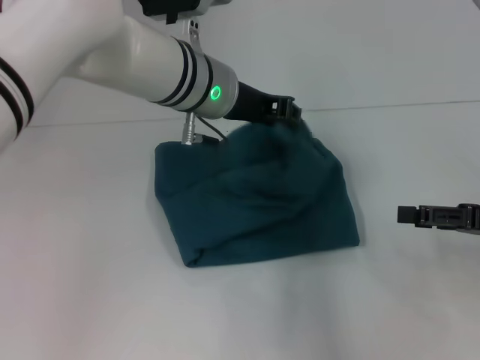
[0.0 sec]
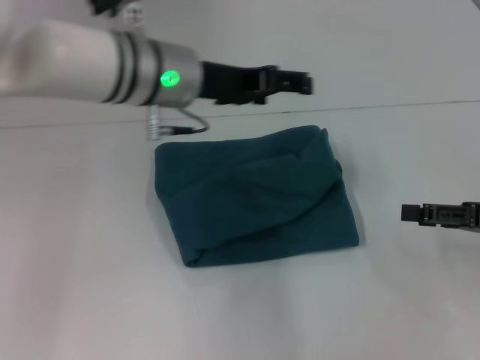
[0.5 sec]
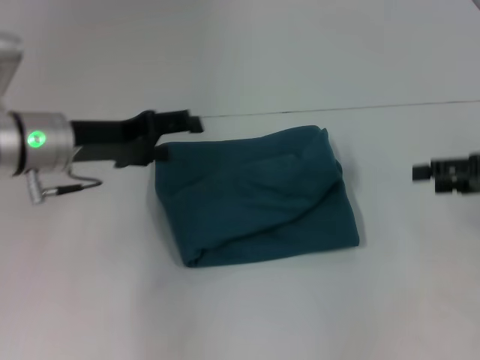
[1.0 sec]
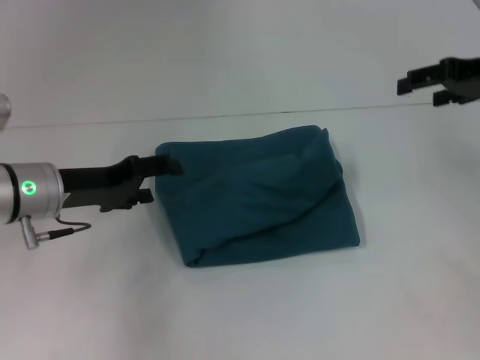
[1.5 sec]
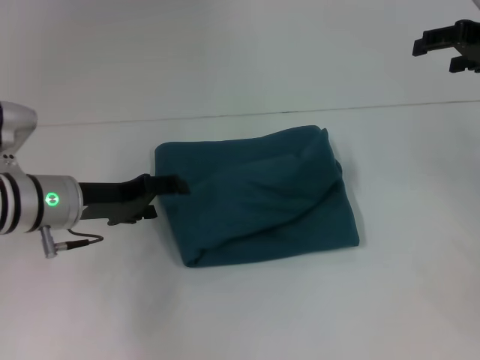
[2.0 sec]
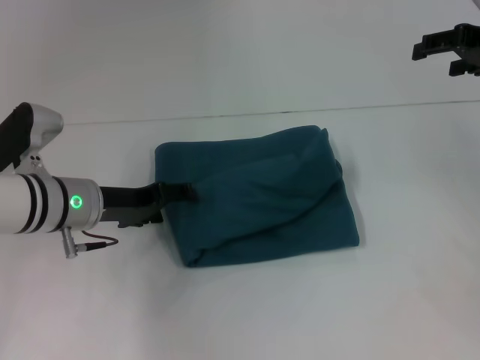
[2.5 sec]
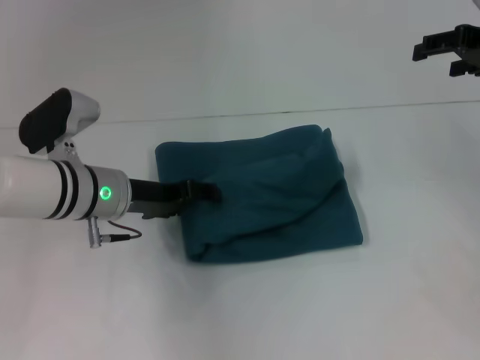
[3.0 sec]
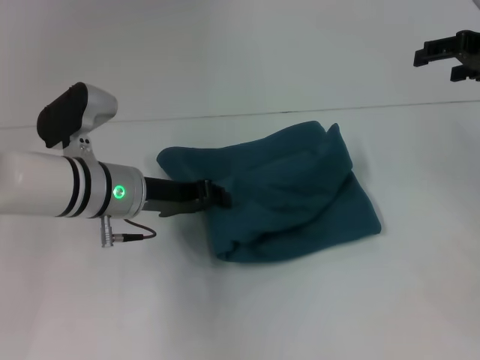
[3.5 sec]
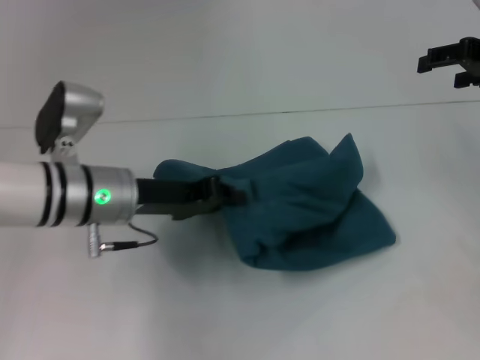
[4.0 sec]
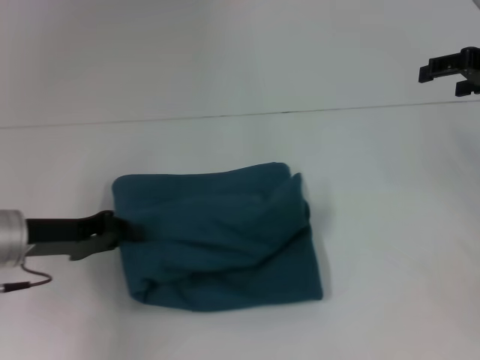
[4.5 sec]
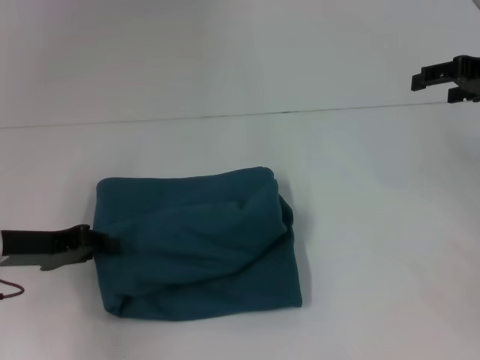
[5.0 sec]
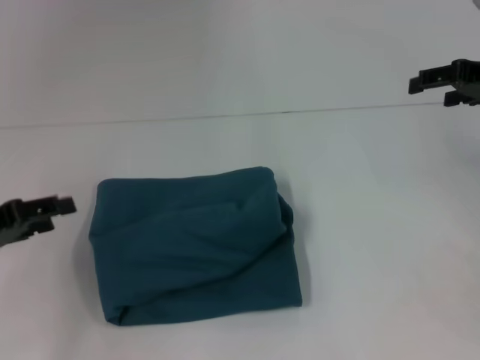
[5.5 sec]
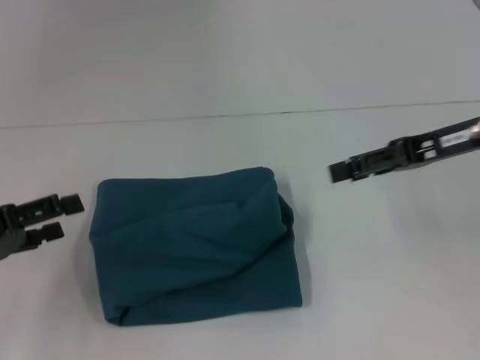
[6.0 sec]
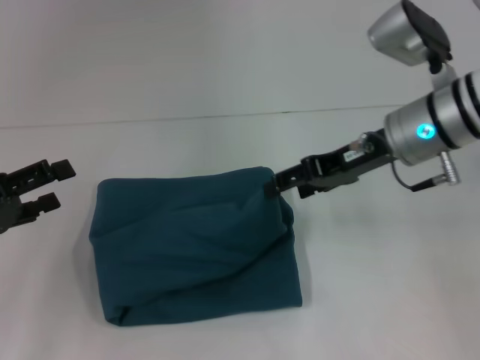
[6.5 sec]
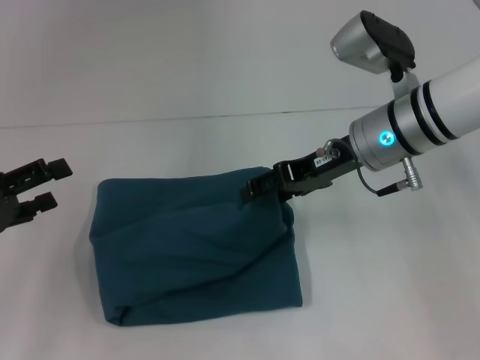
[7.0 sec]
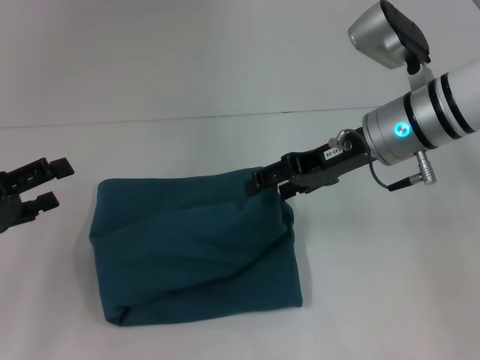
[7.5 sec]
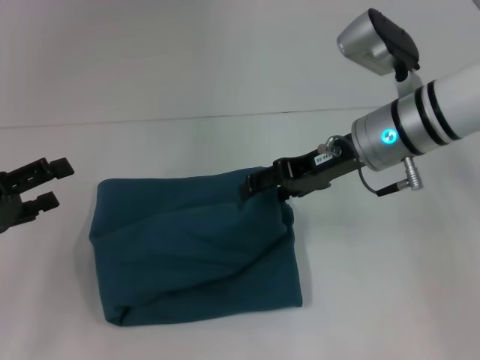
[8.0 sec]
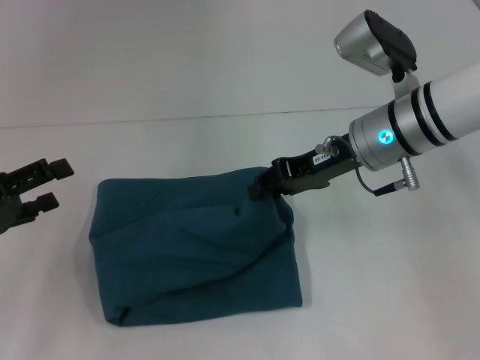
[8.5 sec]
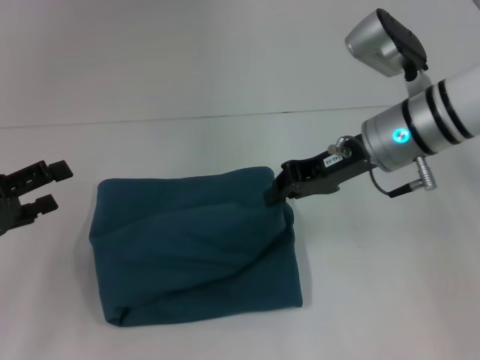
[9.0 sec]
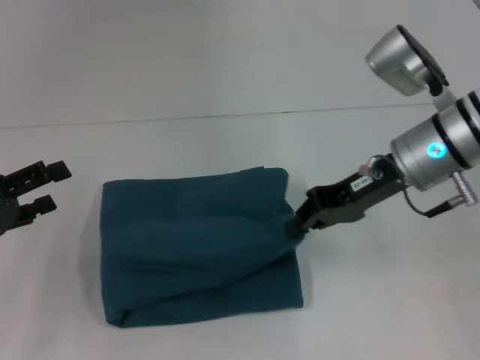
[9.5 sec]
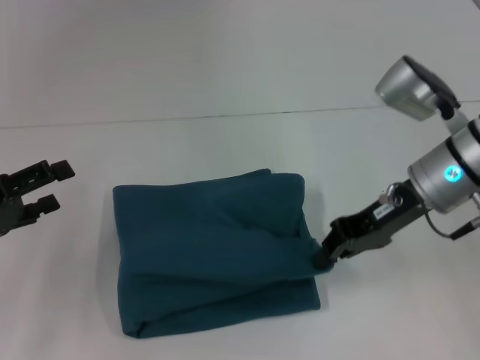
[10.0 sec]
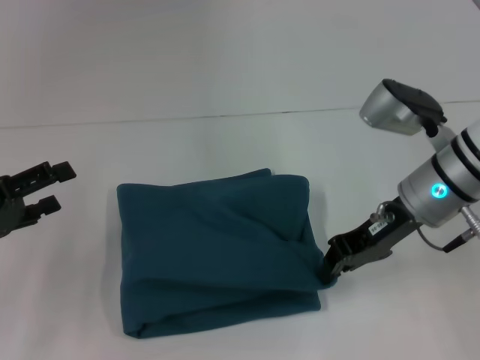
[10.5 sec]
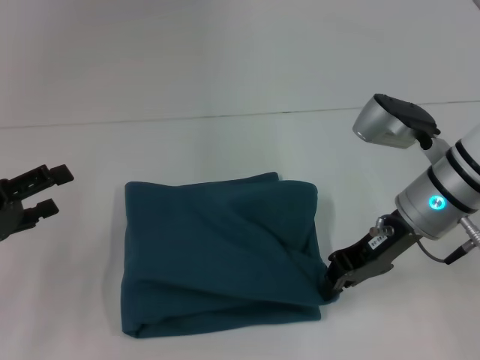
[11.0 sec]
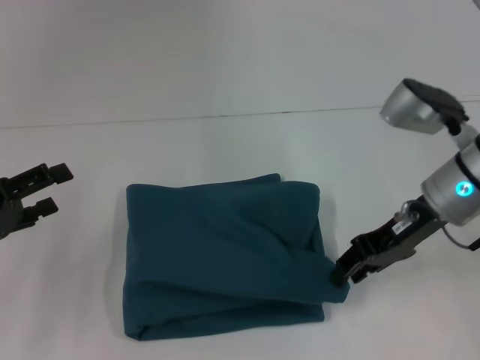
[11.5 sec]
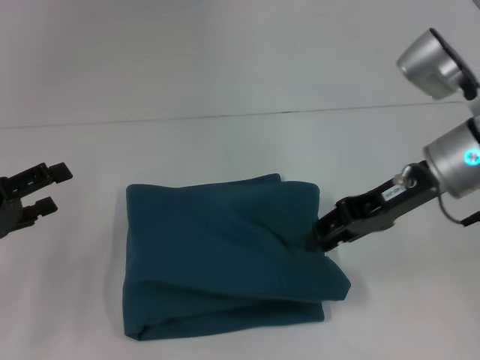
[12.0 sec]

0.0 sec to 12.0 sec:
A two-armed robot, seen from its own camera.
0.0 sec to 2.0 sec: The right gripper moves forward and upward, roughly 20 cm. The left gripper heads to the left and downward, covering roughly 20 cm, and opens.
2.0 sec to 4.0 sec: The left gripper goes approximately 5 cm to the right, and closes its fingers.
4.0 sec to 6.0 sec: The right gripper shifts some 10 cm to the left and backward, while the left gripper travels to the left and backward by approximately 20 cm, and opens up.
6.0 sec to 8.0 sec: The right gripper heads to the left, covering roughly 10 cm.
8.0 sec to 10.0 sec: The right gripper changes place by approximately 5 cm, and closes.
10.0 sec to 12.0 sec: The right gripper opens its fingers.

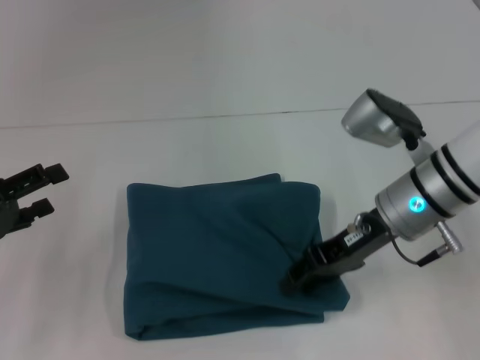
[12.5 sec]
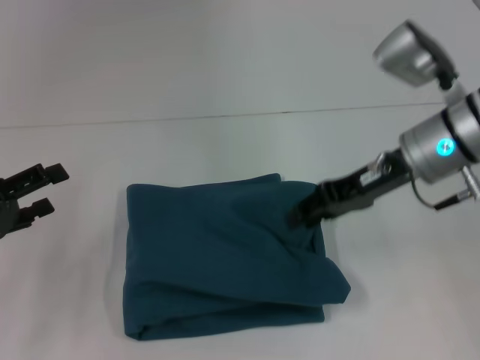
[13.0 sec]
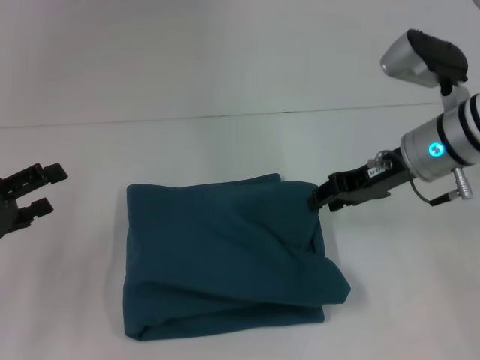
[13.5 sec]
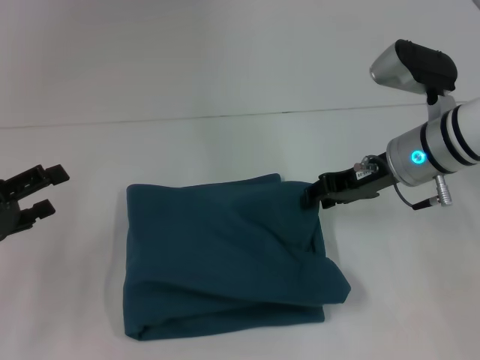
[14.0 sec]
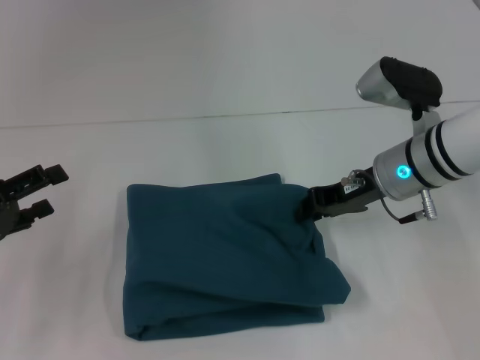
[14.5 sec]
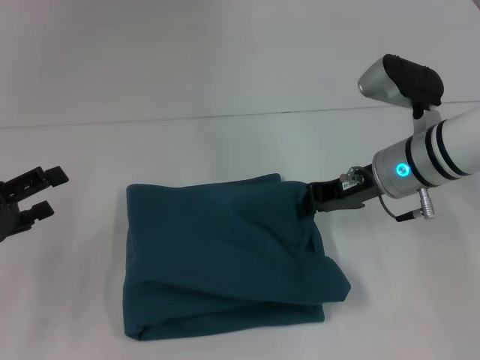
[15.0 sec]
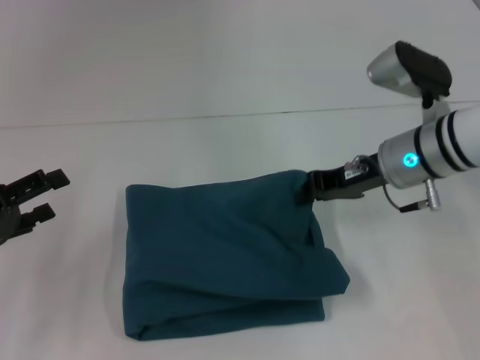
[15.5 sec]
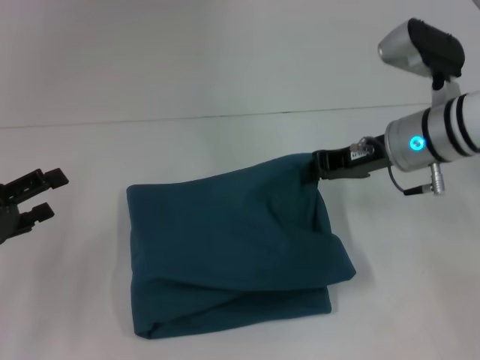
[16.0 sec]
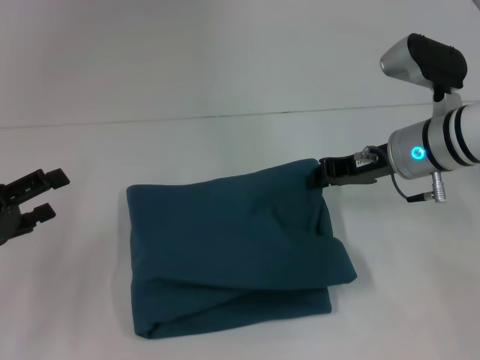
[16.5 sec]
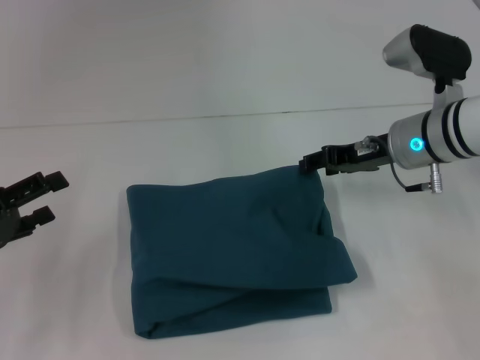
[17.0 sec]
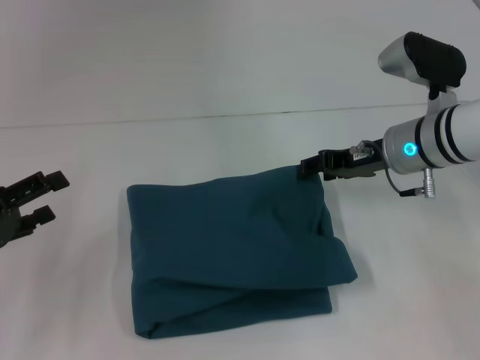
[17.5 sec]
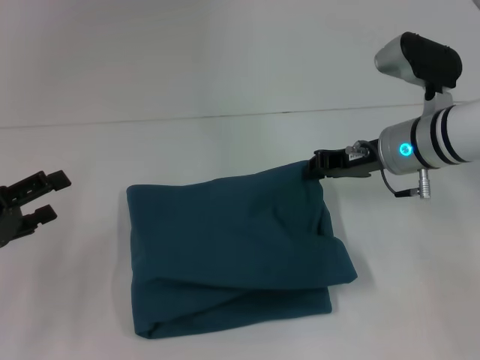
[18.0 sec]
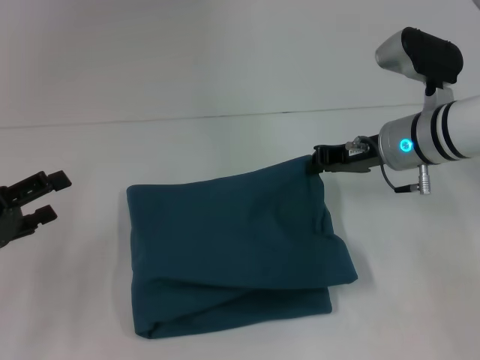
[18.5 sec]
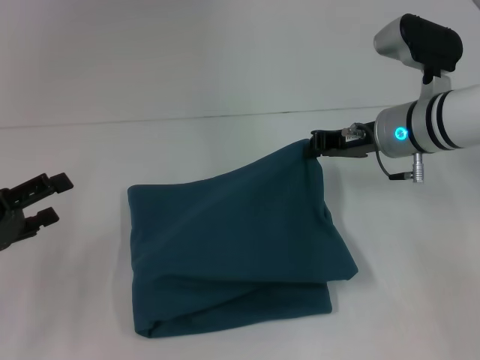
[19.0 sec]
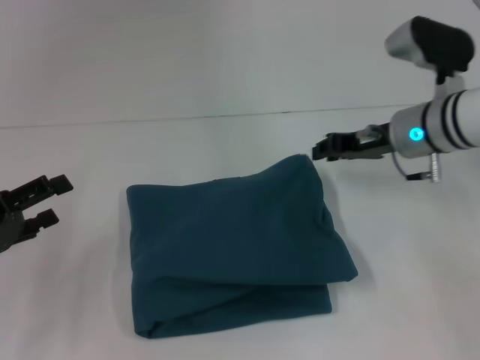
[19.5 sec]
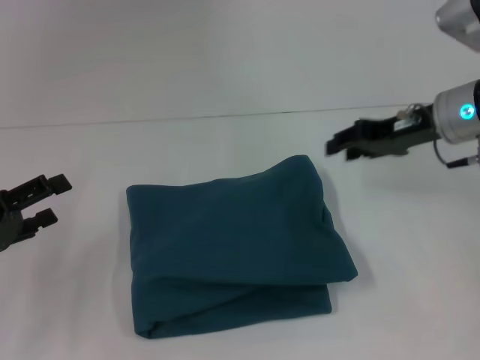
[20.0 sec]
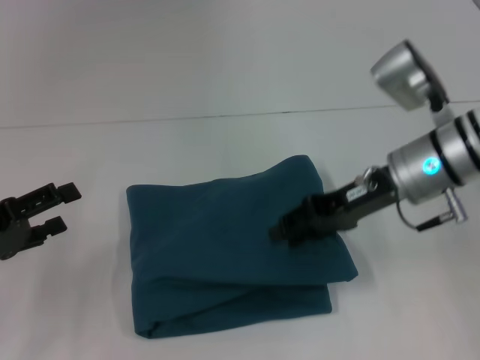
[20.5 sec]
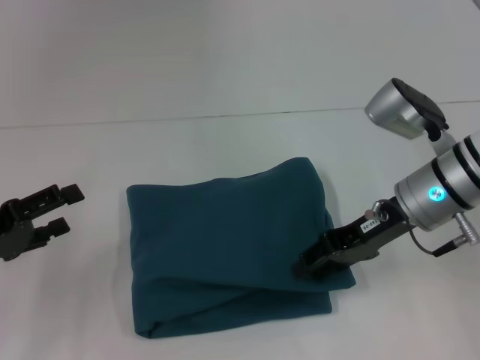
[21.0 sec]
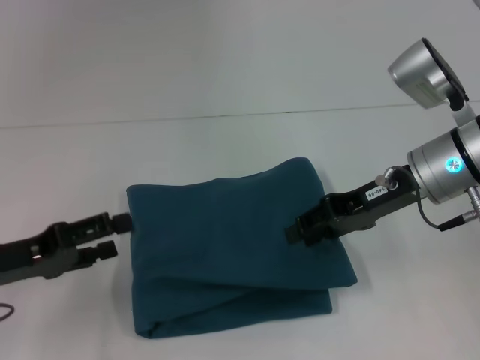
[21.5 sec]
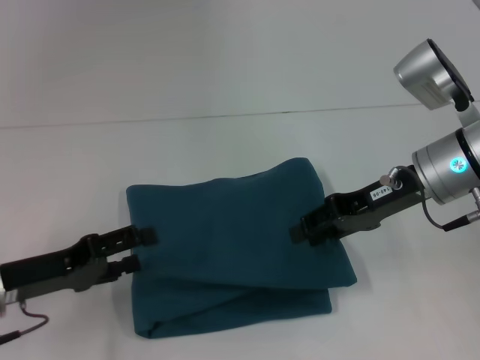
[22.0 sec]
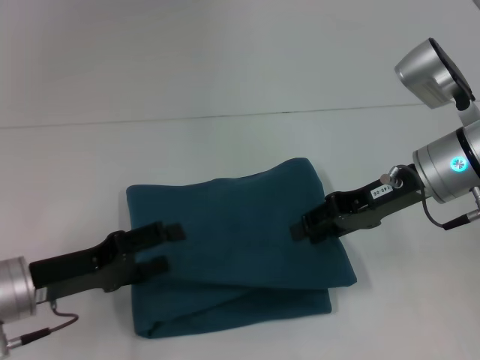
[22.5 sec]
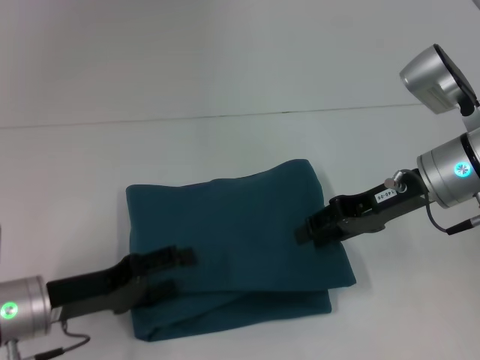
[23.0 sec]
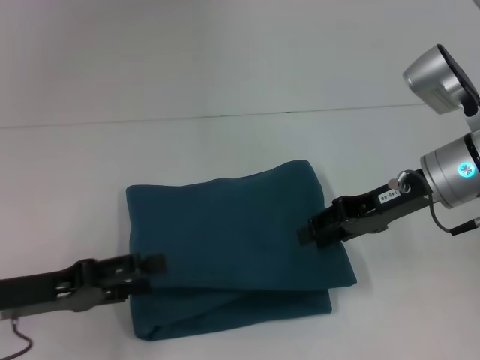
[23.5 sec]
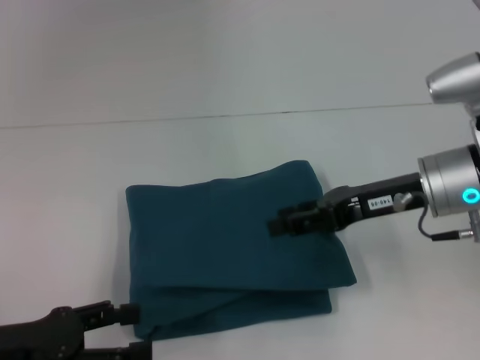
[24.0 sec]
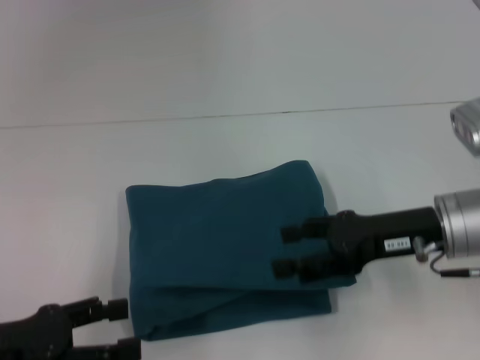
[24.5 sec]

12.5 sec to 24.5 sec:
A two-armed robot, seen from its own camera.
14.5 sec to 16.5 sec: The right gripper closes its fingers.
16.5 sec to 18.5 sec: The right gripper opens, then closes again.
18.5 sec to 20.5 sec: The right gripper opens.
20.5 sec to 22.5 sec: The left gripper shifts about 10 cm to the right.
22.5 sec to 24.5 sec: The grippers both shift backward by some 5 cm. The right gripper opens up.

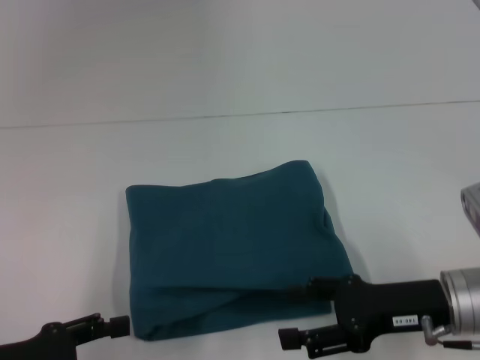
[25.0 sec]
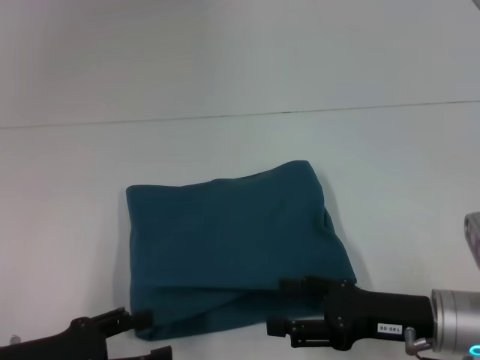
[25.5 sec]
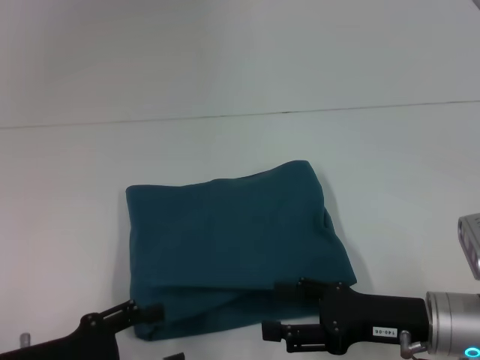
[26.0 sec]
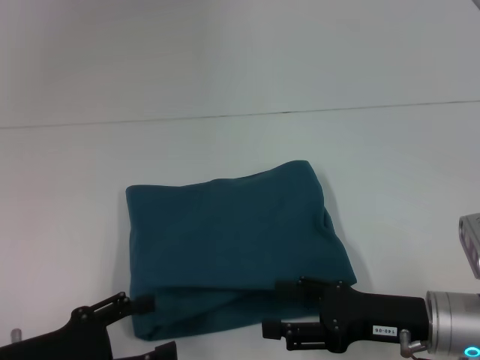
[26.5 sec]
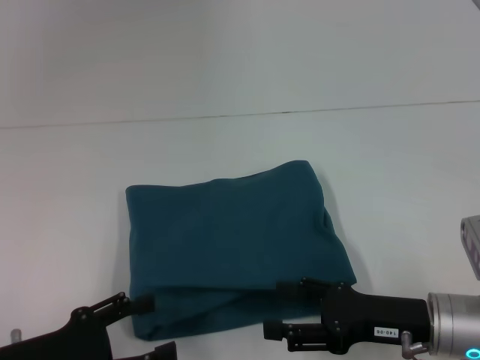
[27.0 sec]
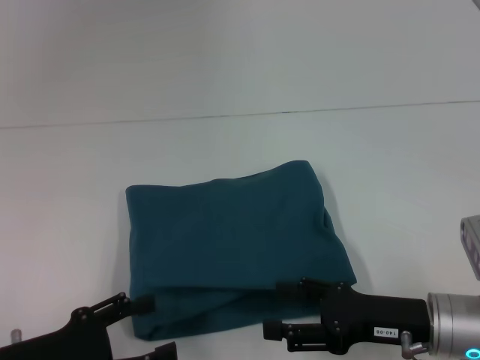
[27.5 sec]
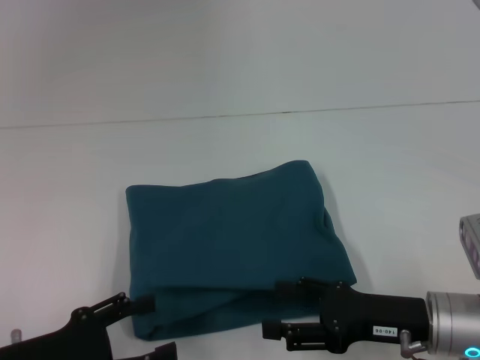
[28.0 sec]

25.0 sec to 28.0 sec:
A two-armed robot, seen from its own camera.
25.0 sec to 26.5 sec: The grippers stay close to where they were, moving slightly.
26.5 sec to 28.0 sec: Both grippers stay about where they are.
